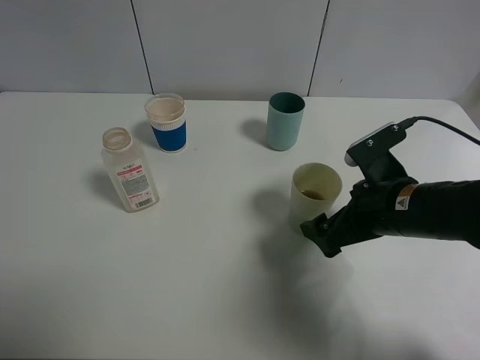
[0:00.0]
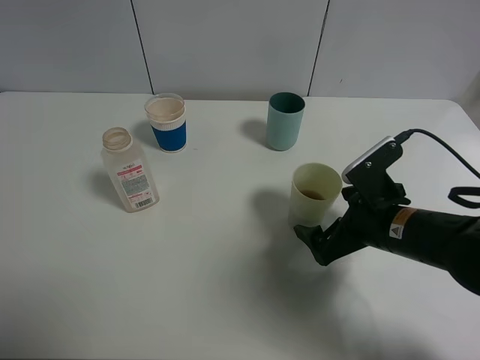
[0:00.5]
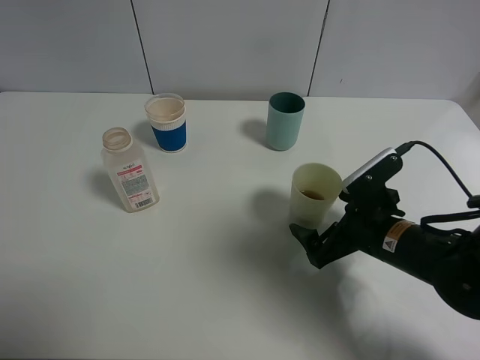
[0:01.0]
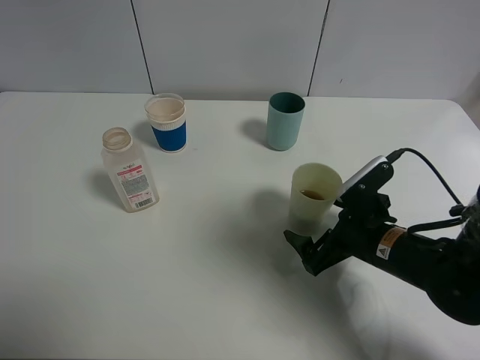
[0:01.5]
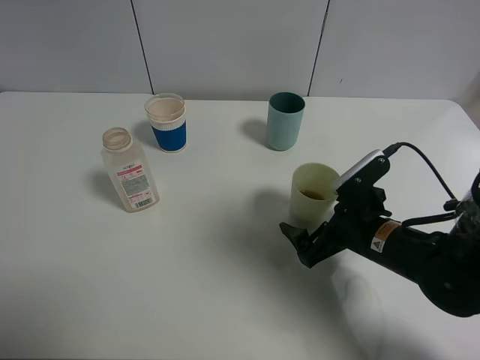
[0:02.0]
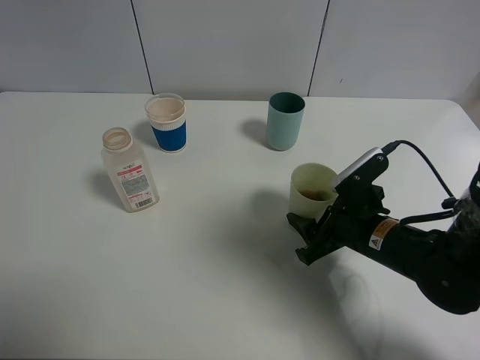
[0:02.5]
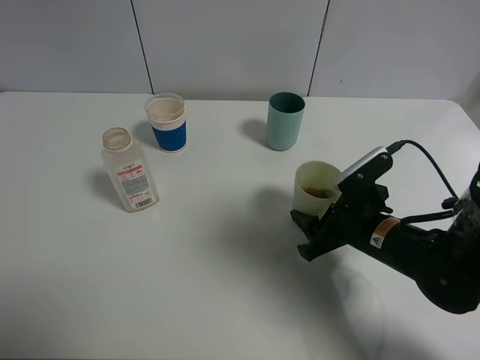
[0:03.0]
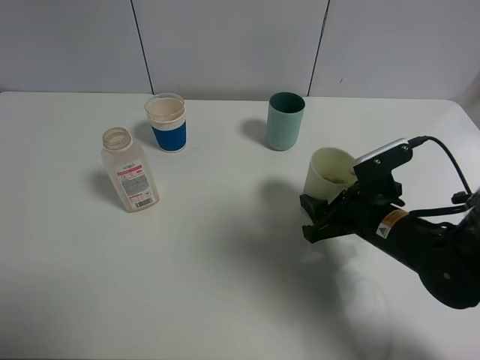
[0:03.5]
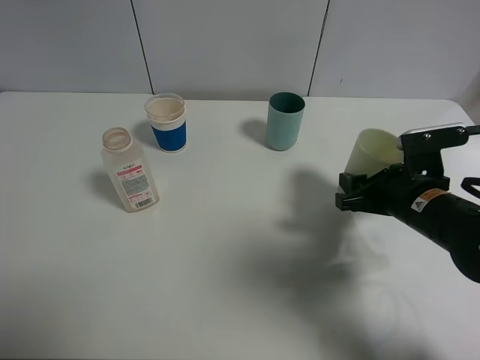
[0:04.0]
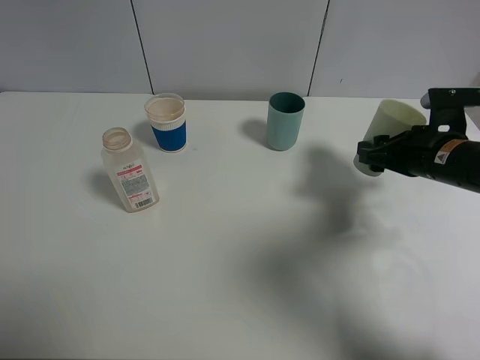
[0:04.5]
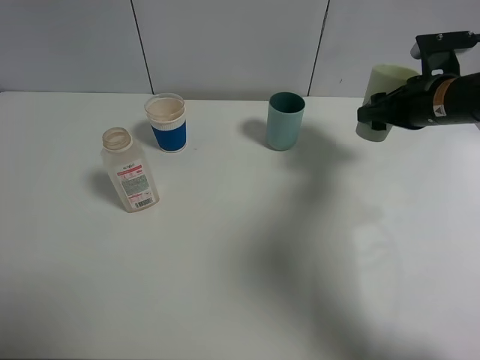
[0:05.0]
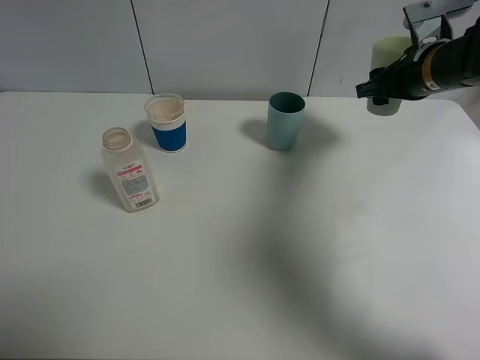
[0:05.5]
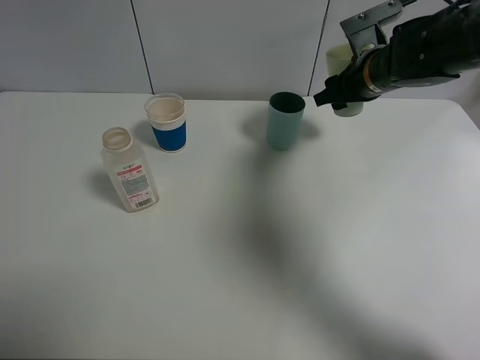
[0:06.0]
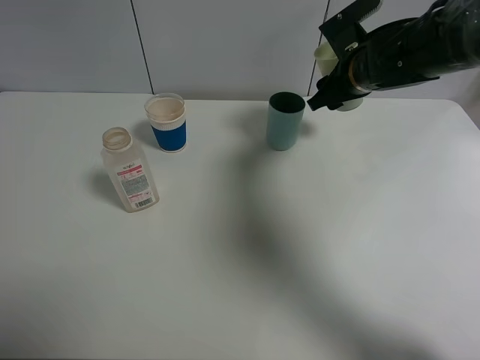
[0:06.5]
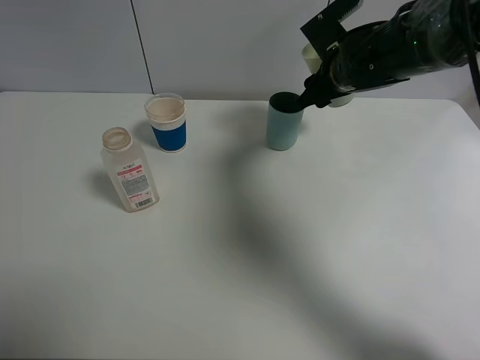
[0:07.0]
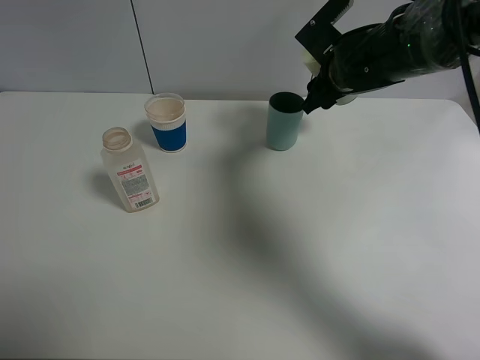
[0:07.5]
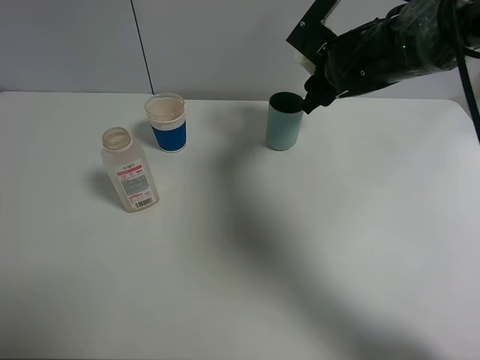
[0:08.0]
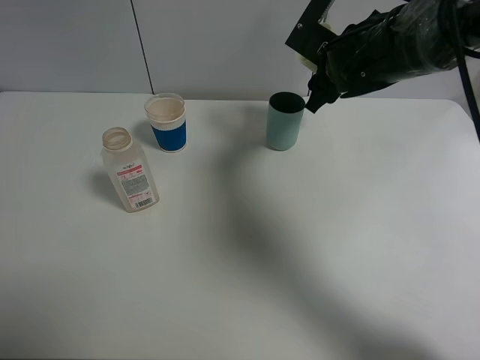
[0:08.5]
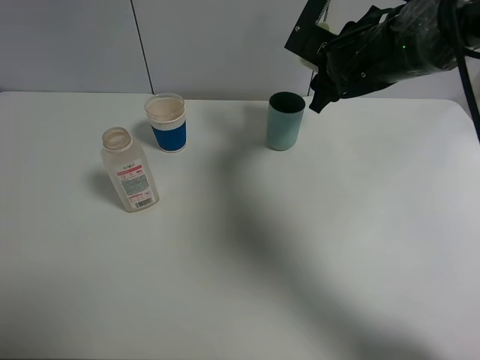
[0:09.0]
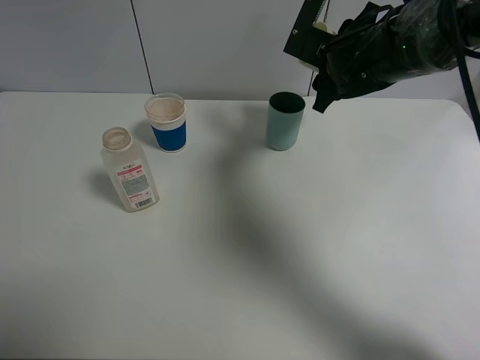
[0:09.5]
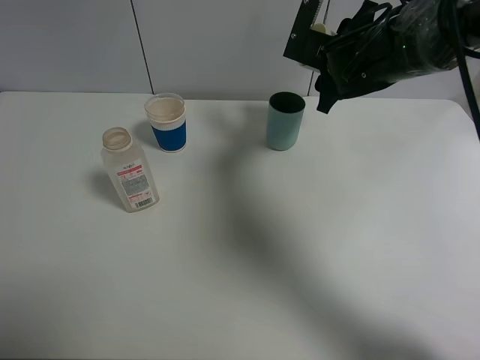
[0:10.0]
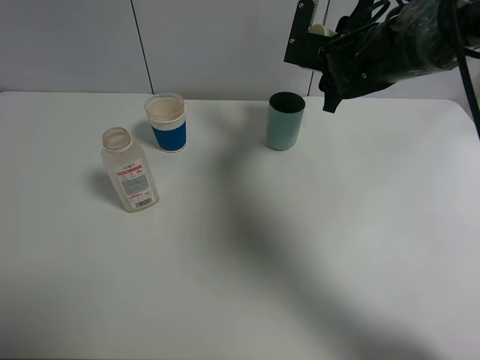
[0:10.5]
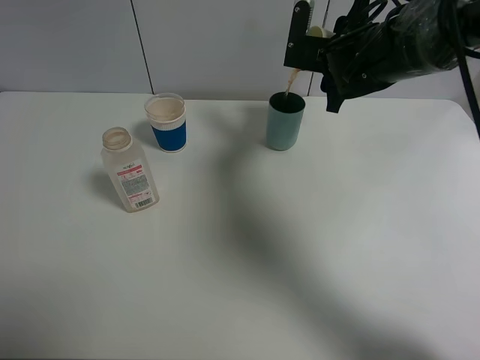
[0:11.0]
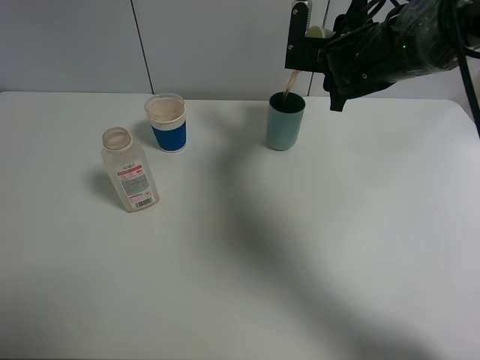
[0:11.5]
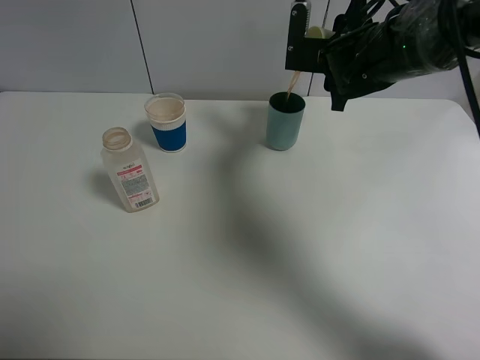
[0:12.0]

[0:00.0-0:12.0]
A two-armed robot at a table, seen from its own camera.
Task of the whole recording: use a clamp to hold the bottle of the drink, pour the beverage into a random cup, then clamp the cup containing the drink and pour the drink into another random cup.
Step, 0:00.0 to 0:03.0: Pick up the green plastic cup bottle with right gripper.
0:00.0 to 0:02.0: The right gripper moves downward, about 5 cm.
0:02.0 to 0:04.0: The right gripper shifts by about 5 cm, and closes up.
0:04.0 to 0:06.0: The right gripper shifts roughly 20 cm forward and upward.
0:06.0 to 0:08.0: The right gripper moves to the left, about 5 cm.
0:08.0 to 0:10.0: The grippers make only small movements.
0:10.0 to 0:12.0: The grippers stay close to where they were, moving slightly.

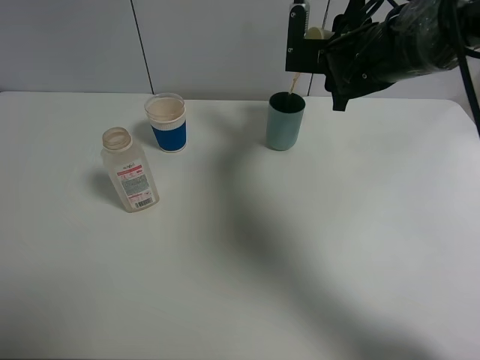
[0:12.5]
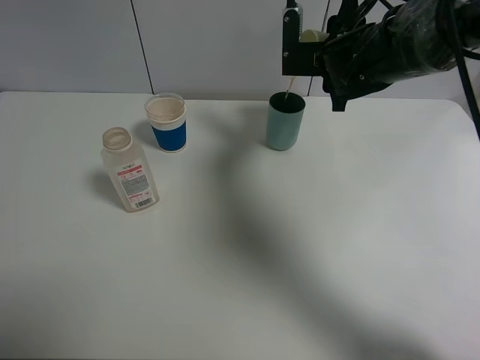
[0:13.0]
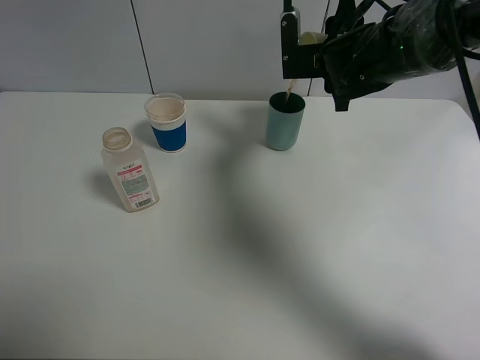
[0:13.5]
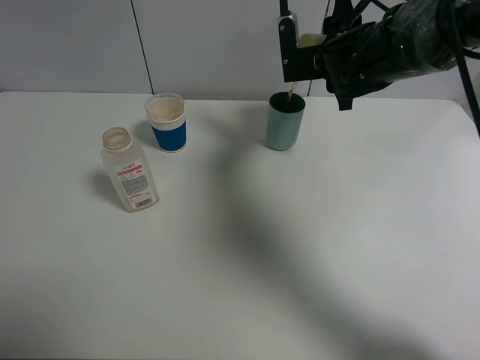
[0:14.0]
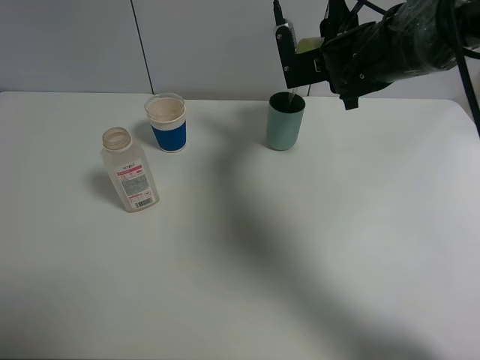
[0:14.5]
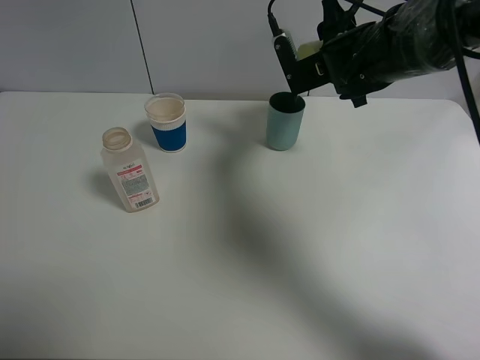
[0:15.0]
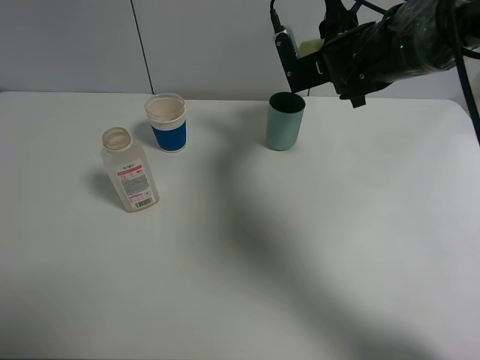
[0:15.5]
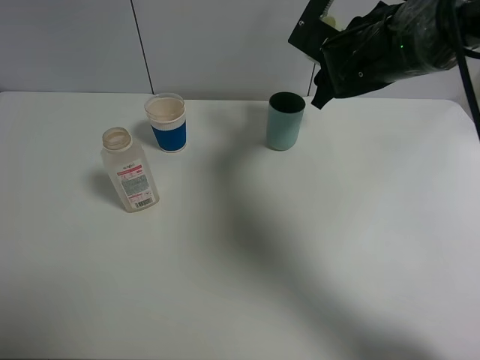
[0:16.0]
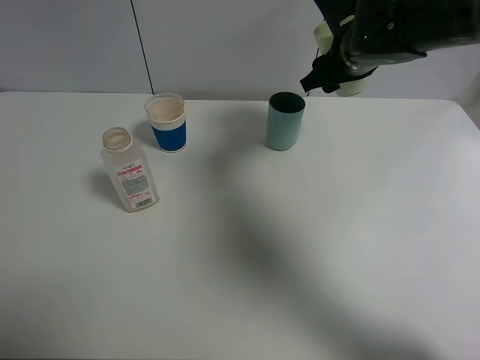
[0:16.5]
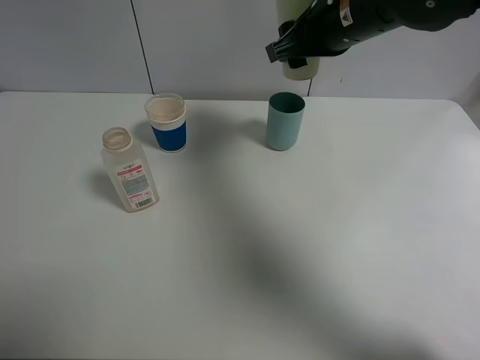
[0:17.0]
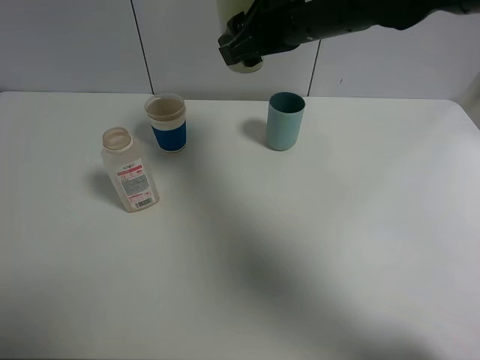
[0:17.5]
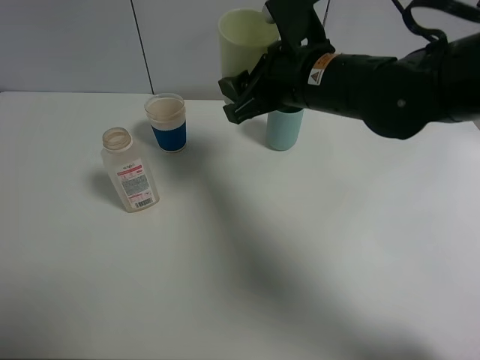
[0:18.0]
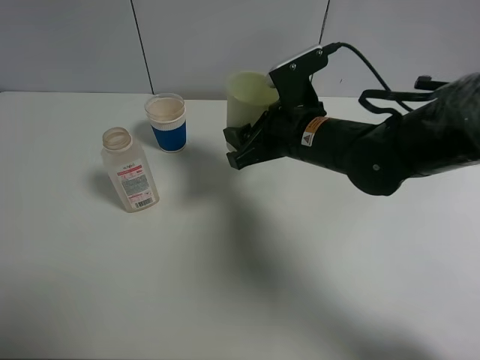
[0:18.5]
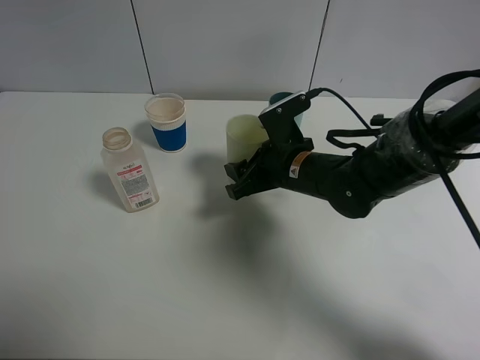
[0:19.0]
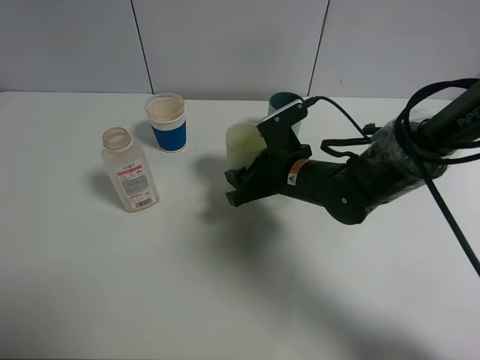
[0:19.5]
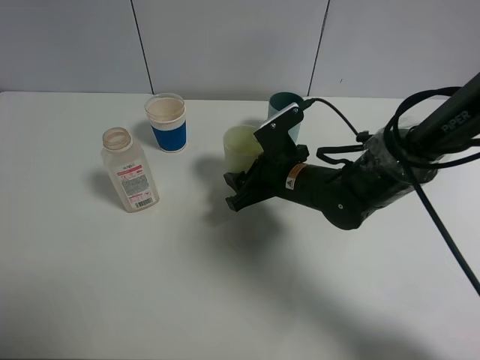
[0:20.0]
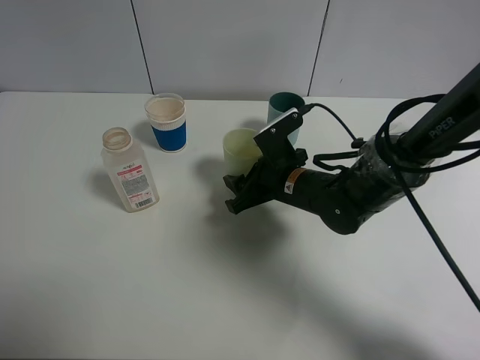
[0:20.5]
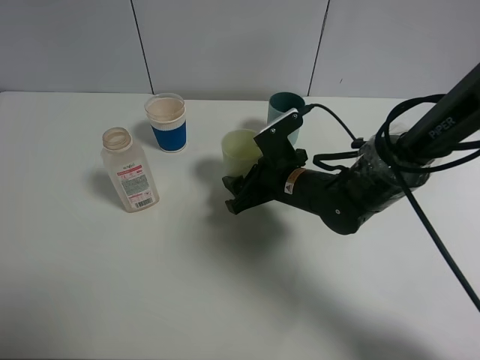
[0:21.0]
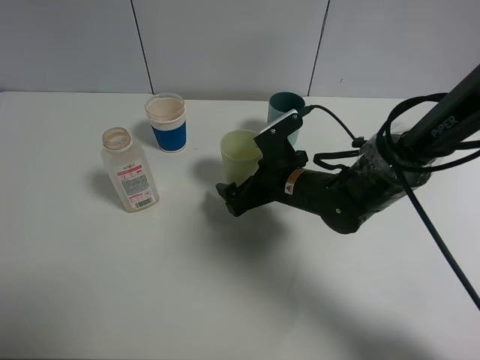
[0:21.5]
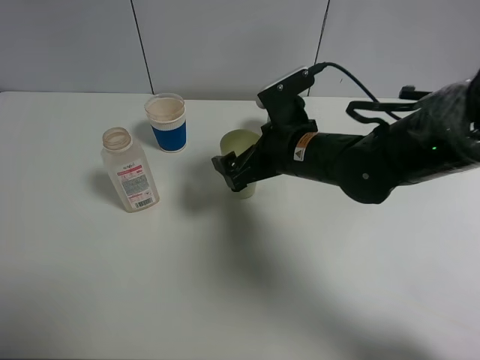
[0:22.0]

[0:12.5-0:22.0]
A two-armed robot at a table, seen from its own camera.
Task of the whole recording: use a clamp to hold the bottle of the drink, pour the beverage into a random cup, then clamp the cup containing the drink and pour the drink into another random cup.
Step, 0:12.5 to 0:15.5: Pour the drink into the blue plastic cup with right gripper.
Step, 0:16.0 to 0:21.0: Place the green plastic cup on the table with right gripper.
0:12.5 to 0:14.5: There are only small adjustments of the grippers.
0:16.5 to 0:18.0: The right gripper travels backward and to the left by roughly 10 cm.
0:18.0 to 0:20.0: The right gripper heads downward, covering roughly 15 cm.
0:20.0 to 0:22.0: The right gripper shifts about 5 cm upward, and opens its fingers.

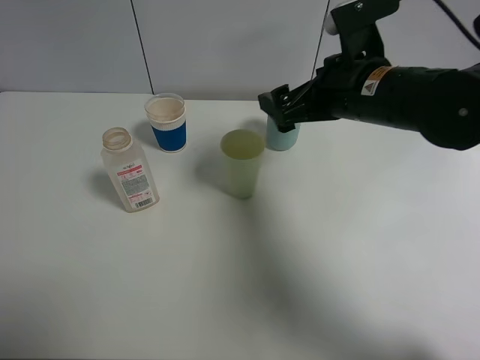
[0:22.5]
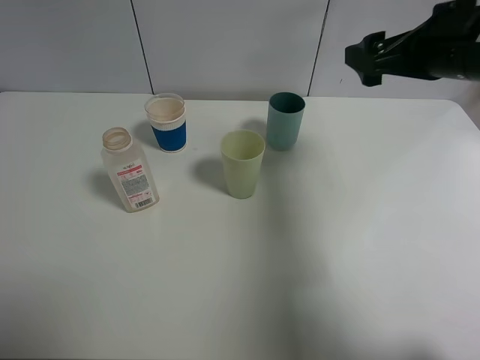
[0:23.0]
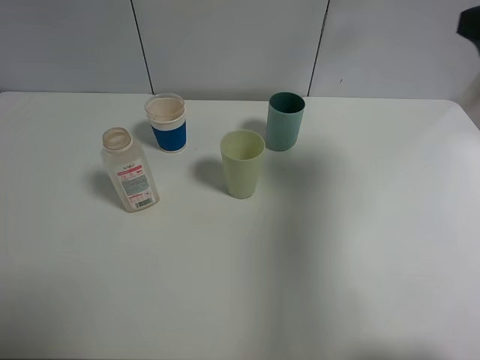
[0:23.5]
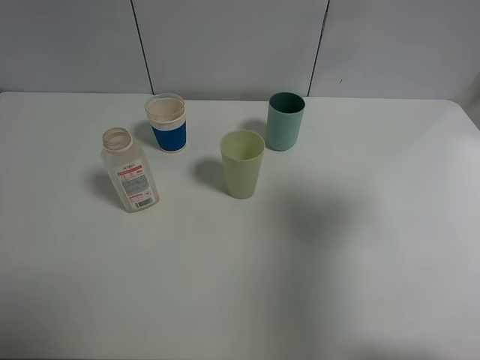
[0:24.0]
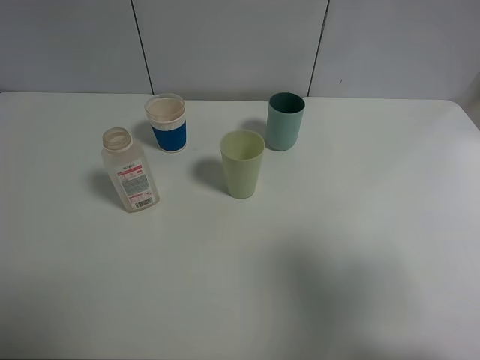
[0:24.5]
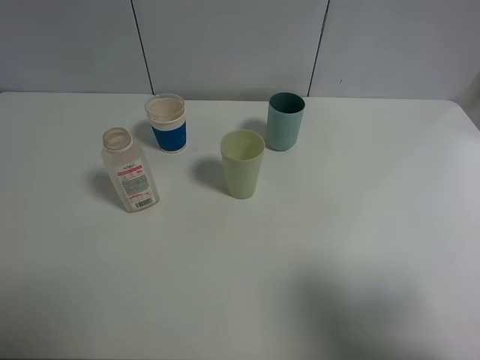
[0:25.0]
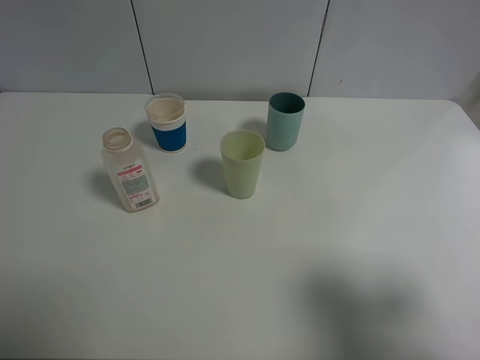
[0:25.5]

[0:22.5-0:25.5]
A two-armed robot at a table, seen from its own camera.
Task of the whole recording: use a clamp to hold the bottle of the drink, pour the beverage into a random cup, then clamp the cup containing the drink and pour the drink into another random cup.
0:22.5 to 0:24.0: The right gripper heads to the right, backward and upward, covering approximately 25 cm.
0:24.0 to 0:25.5: The right gripper travels backward and downward by about 15 cm.
